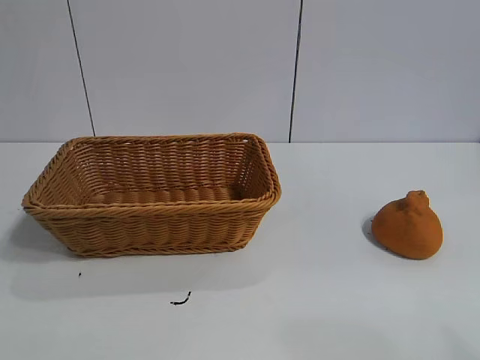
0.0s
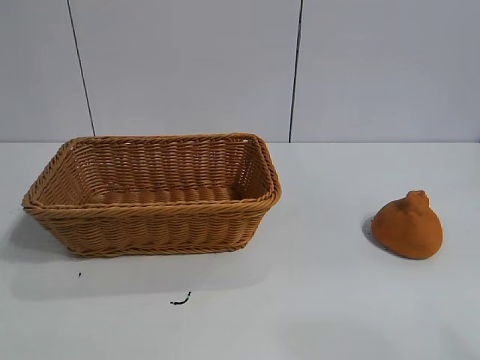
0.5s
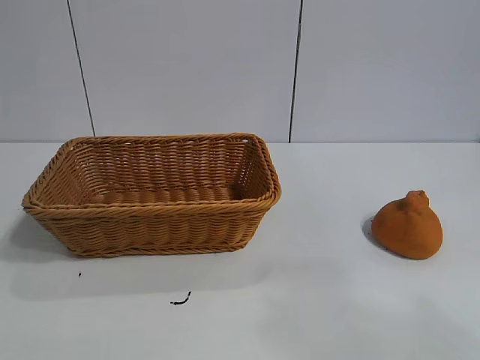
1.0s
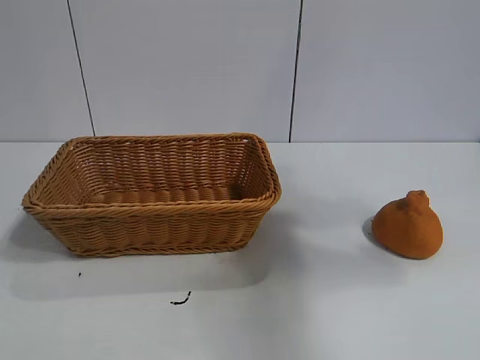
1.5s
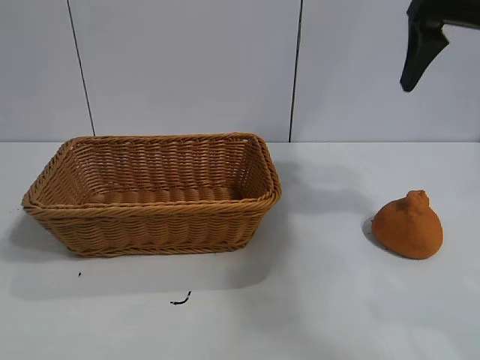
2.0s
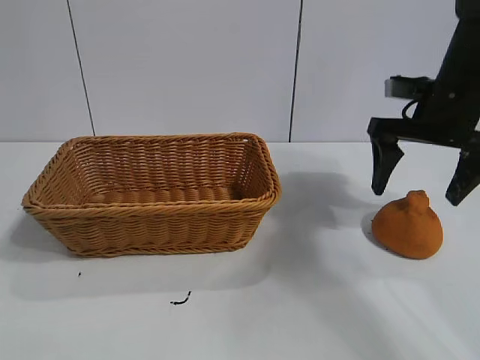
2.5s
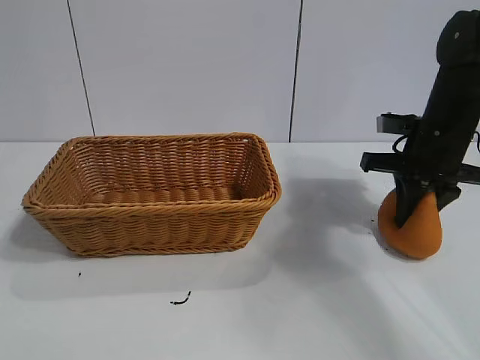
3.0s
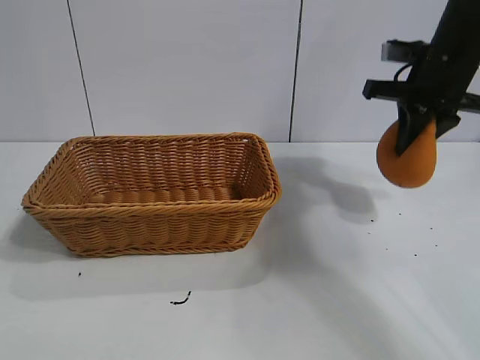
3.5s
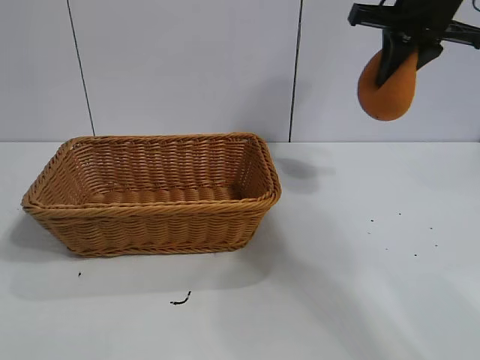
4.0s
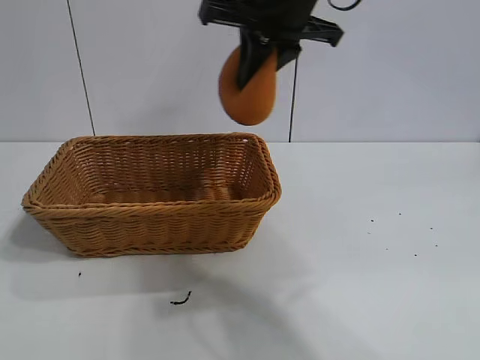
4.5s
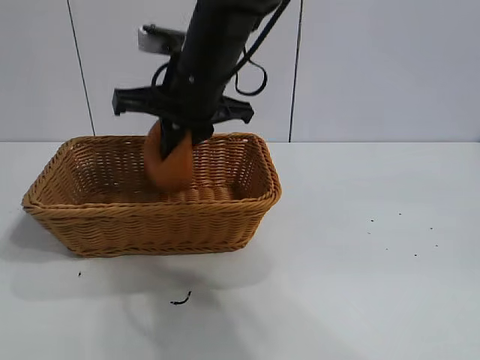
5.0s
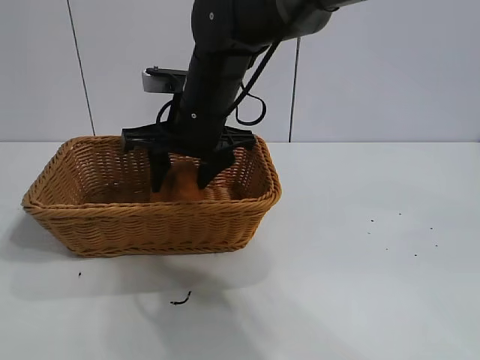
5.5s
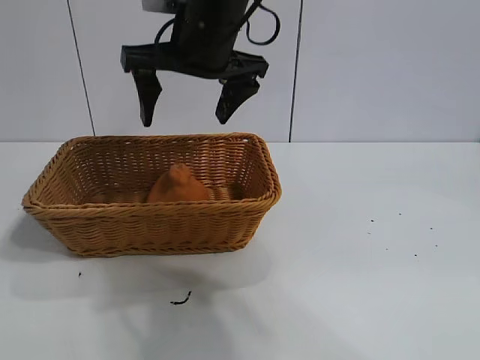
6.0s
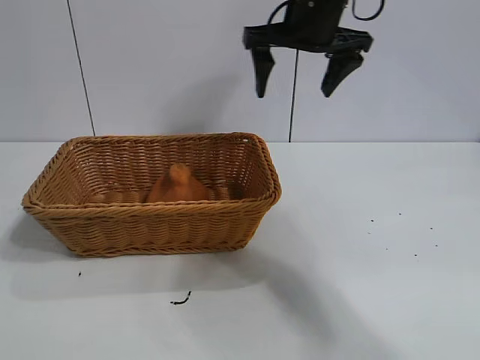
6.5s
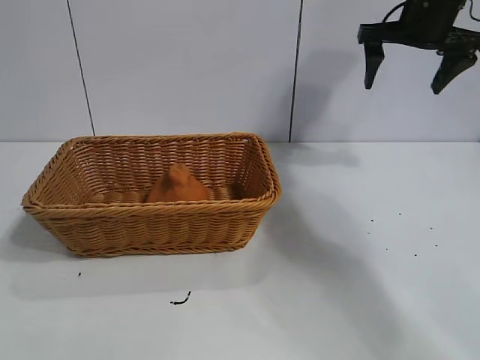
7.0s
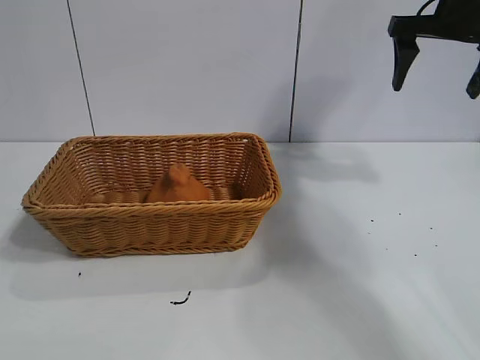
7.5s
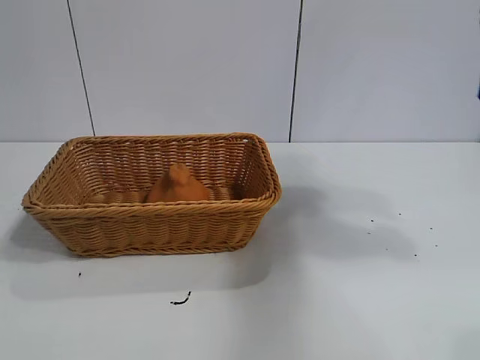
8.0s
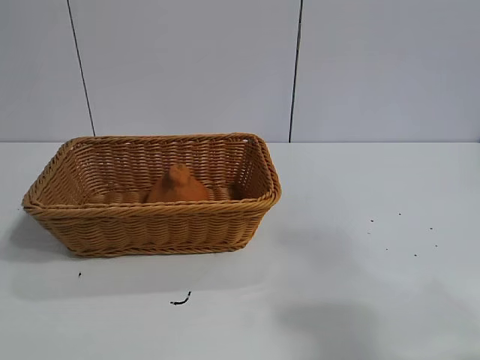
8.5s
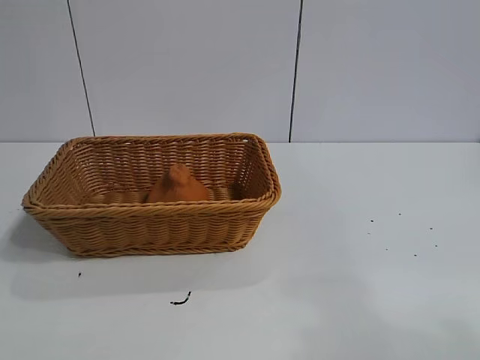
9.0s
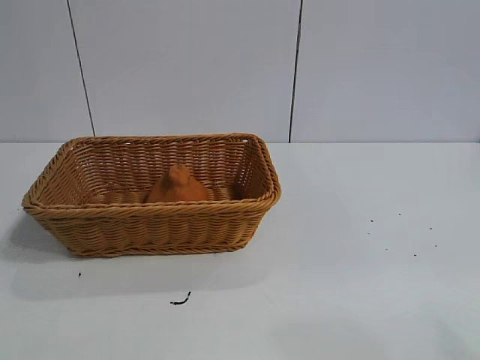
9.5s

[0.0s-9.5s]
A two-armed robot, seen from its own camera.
Task of the whole recording: pick up the orange and put it into the basket.
Step, 1.0s to 3.0s: Grasp the orange with right gripper.
Step, 3.5s to 5.5s: Place the orange in the basket with right gripper.
